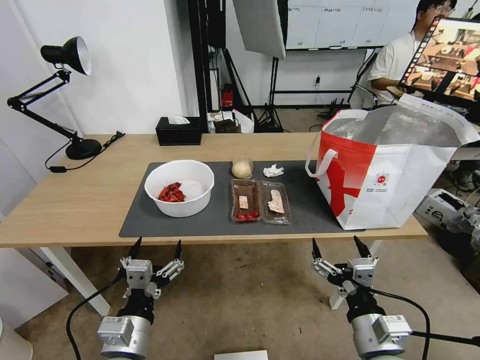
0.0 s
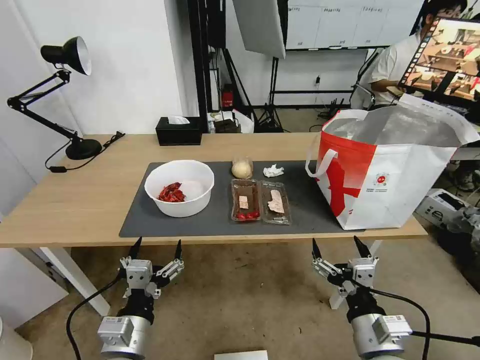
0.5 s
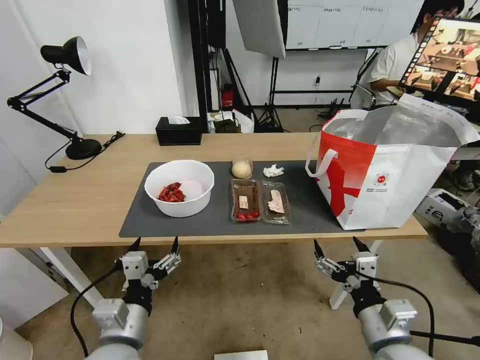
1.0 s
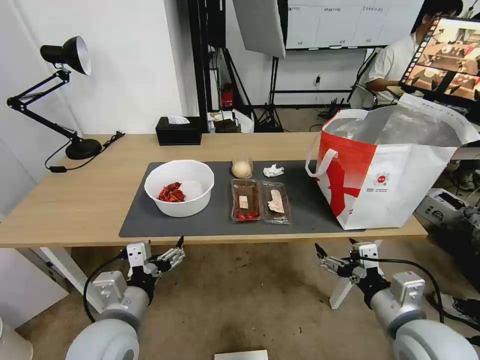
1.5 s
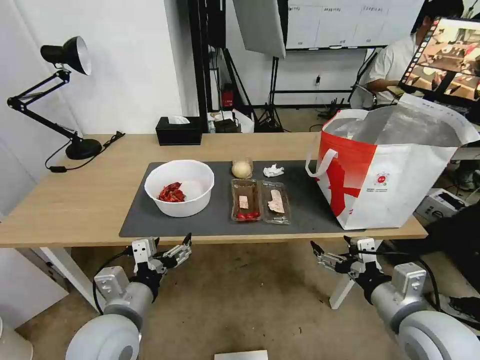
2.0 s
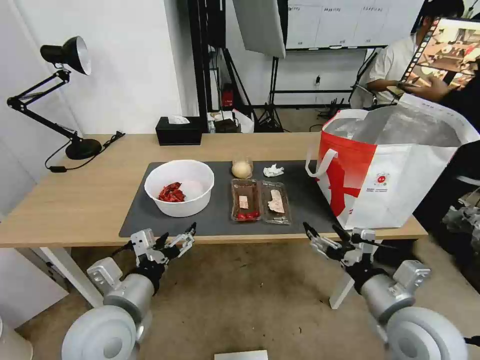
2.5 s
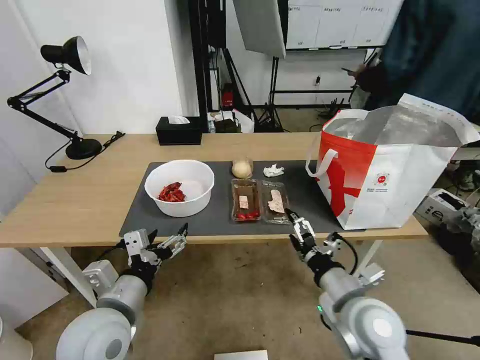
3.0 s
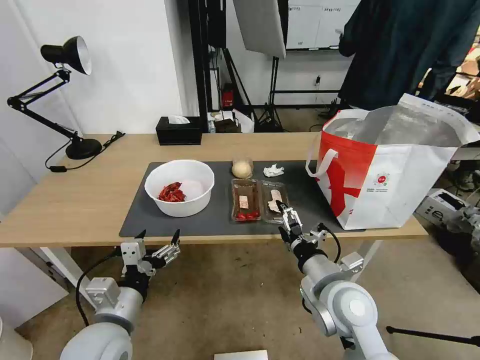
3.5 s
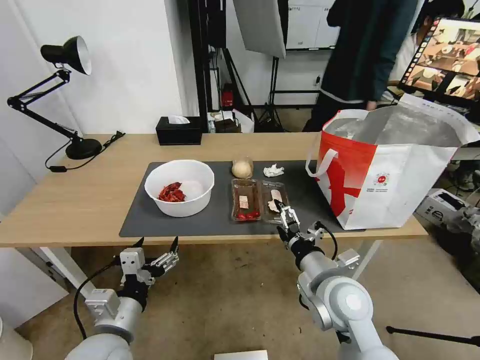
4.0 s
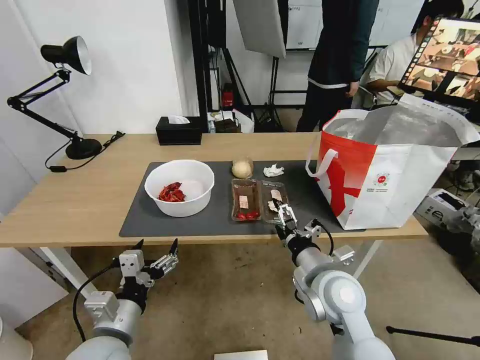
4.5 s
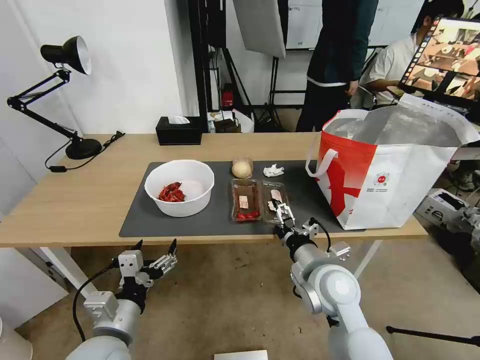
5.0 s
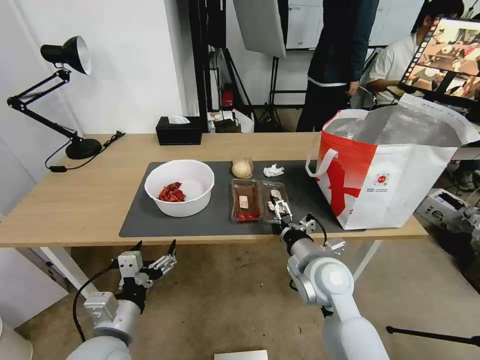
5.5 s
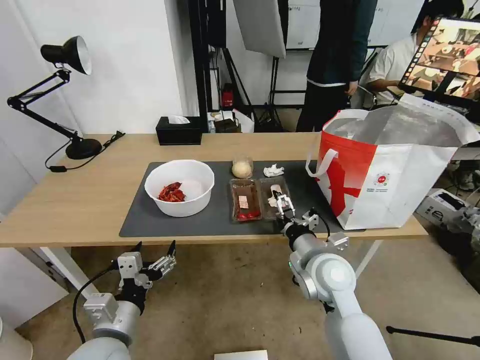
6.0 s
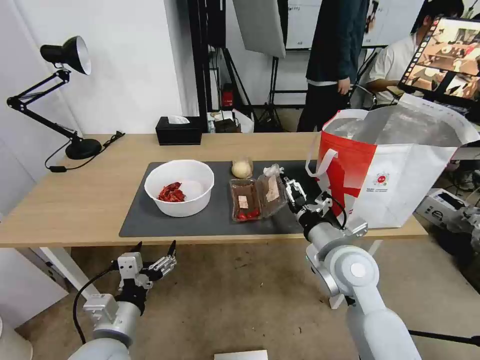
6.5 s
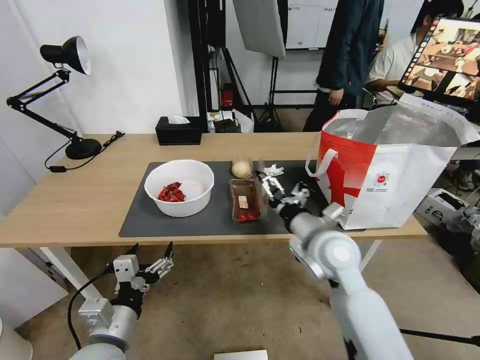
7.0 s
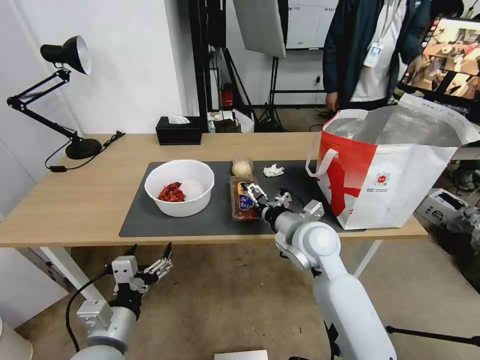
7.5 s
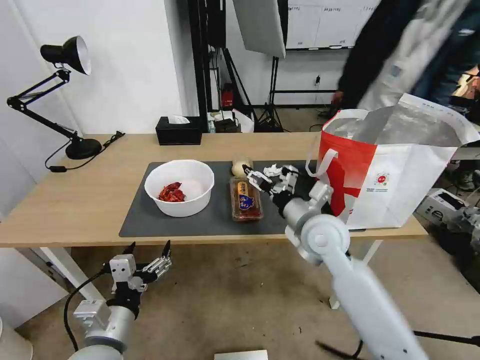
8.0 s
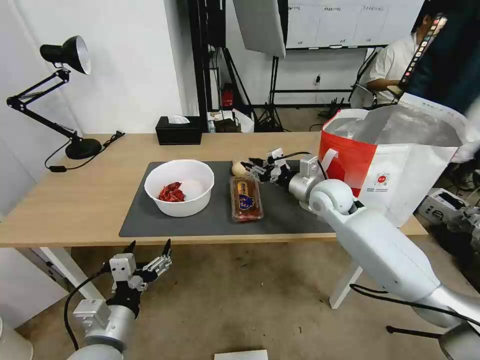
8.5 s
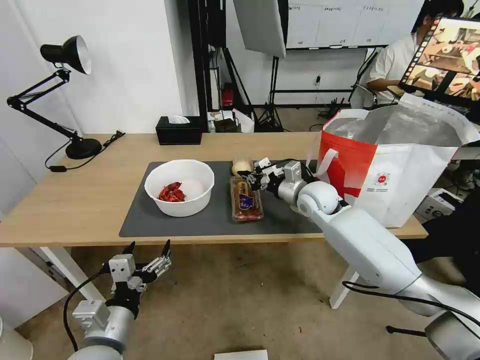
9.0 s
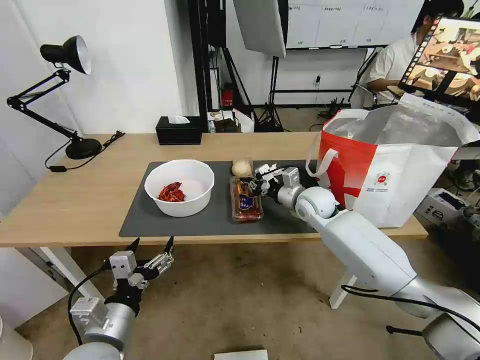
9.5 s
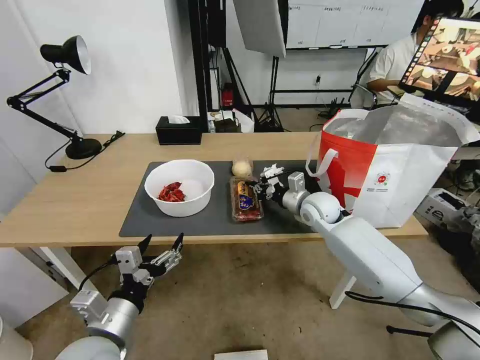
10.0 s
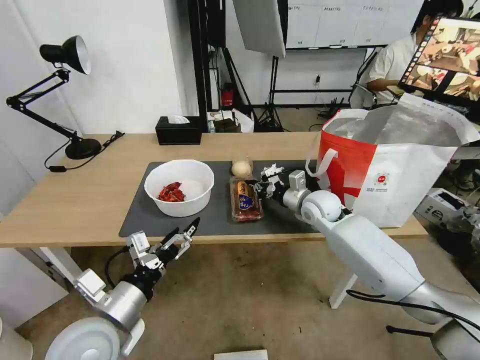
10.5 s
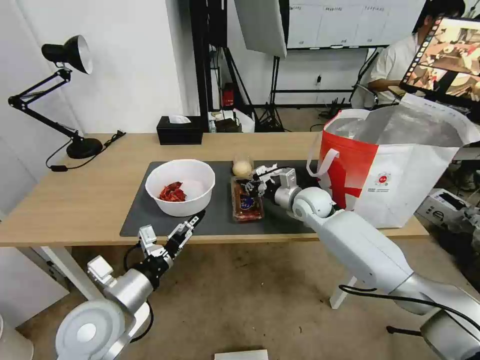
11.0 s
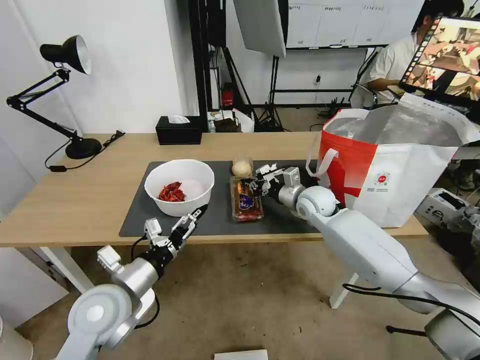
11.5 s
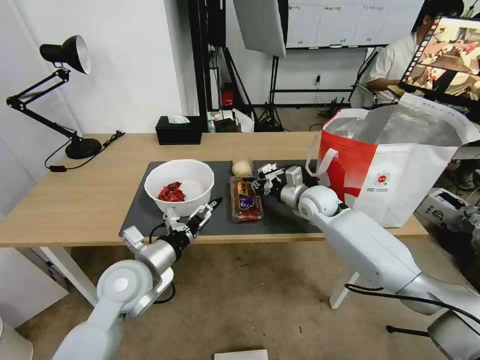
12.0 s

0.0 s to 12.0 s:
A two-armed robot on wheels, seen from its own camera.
Task of the whole recording: Pick up the trash from the table and place it into the takeout bag.
2.0 to 4.0 s: The right gripper goes approximately 15 cm to the left and forward, while the left gripper changes place by some 5 cm.
4.0 to 6.0 s: The right gripper ends up roughly 5 cm from where it was.
6.0 to 8.0 s: The right gripper heads forward, covering some 5 cm.
8.0 to 10.0 s: The right gripper heads forward and downward, covering some 15 cm, and closes.
10.0 to 12.0 s: The left gripper heads forward, covering some 15 cm.

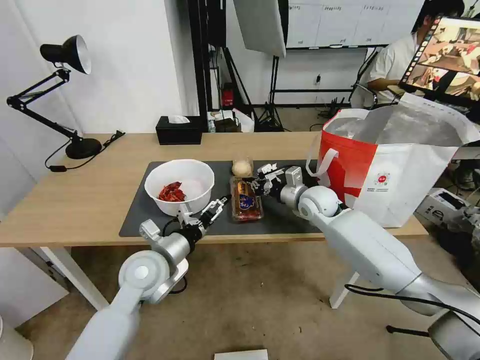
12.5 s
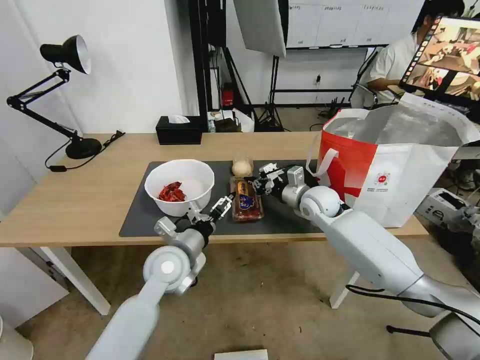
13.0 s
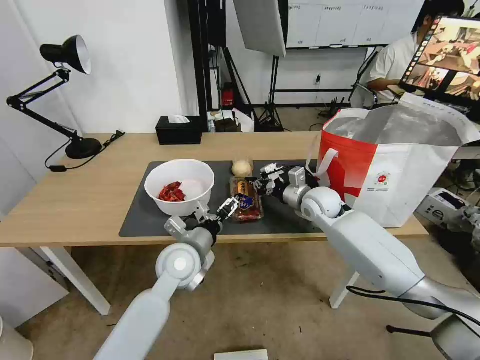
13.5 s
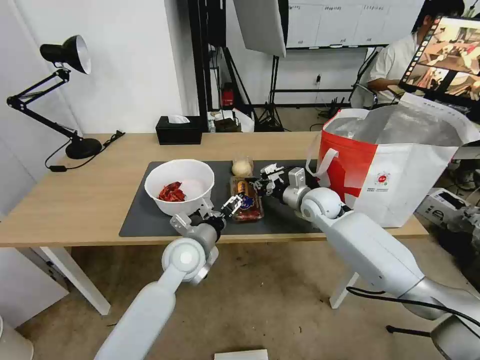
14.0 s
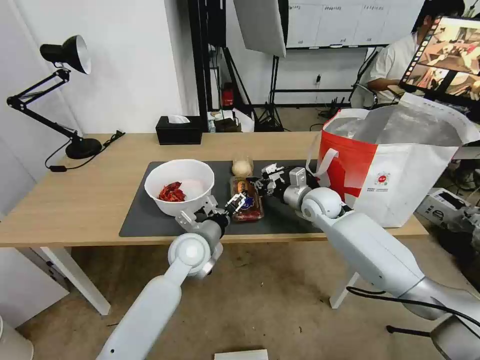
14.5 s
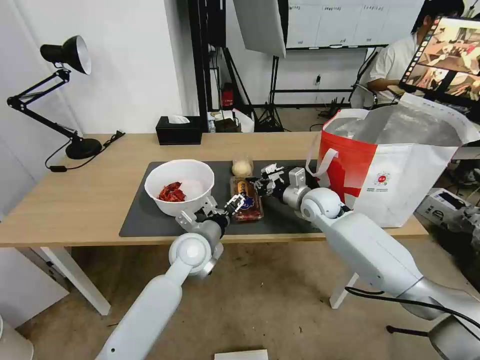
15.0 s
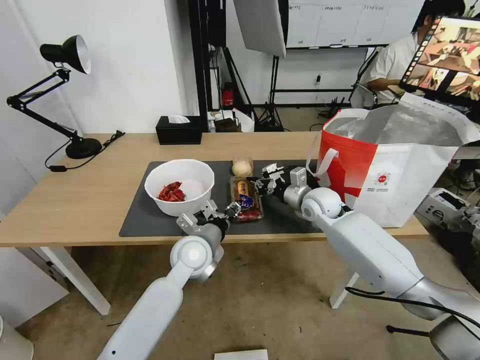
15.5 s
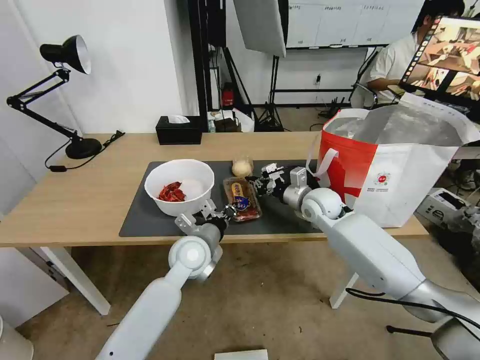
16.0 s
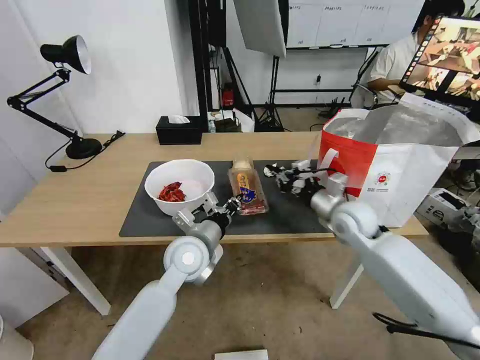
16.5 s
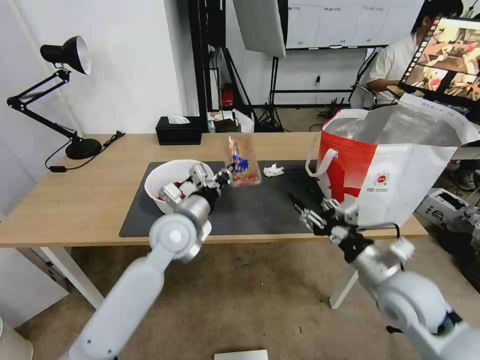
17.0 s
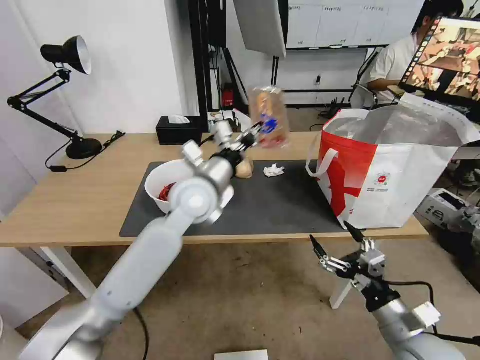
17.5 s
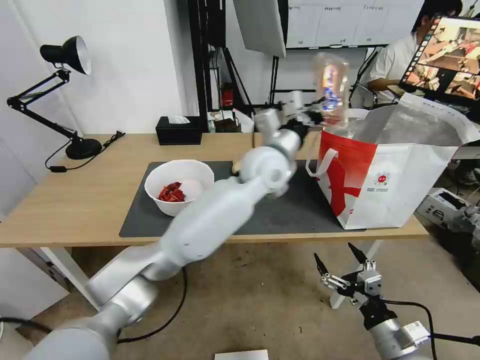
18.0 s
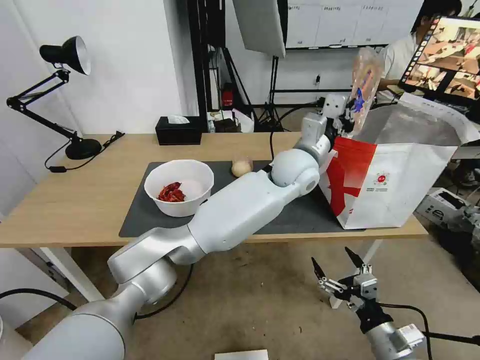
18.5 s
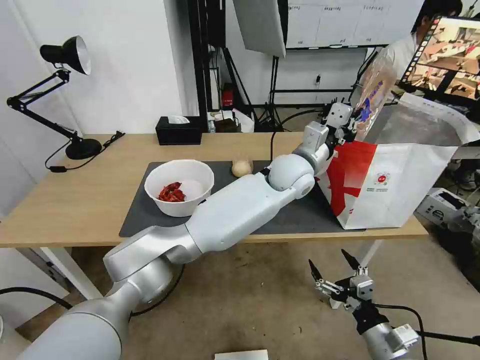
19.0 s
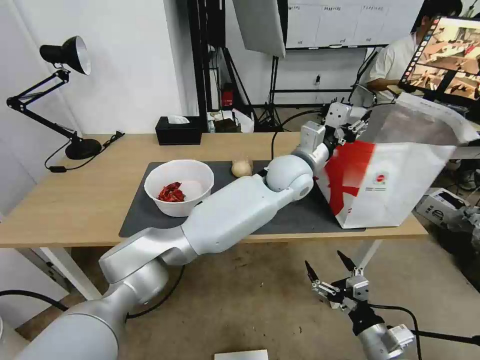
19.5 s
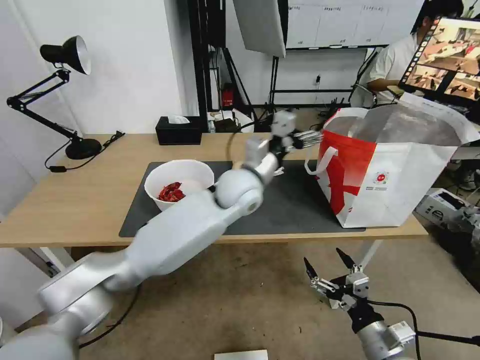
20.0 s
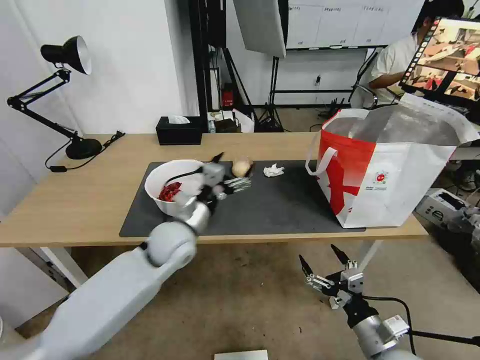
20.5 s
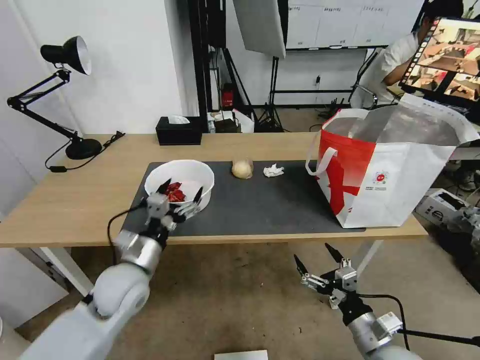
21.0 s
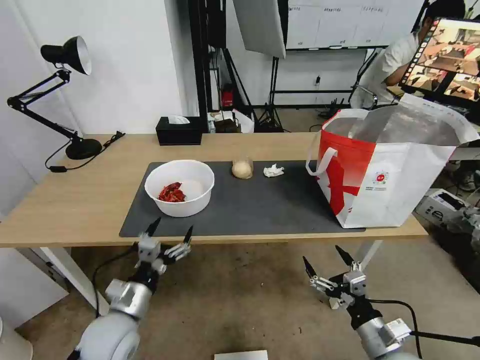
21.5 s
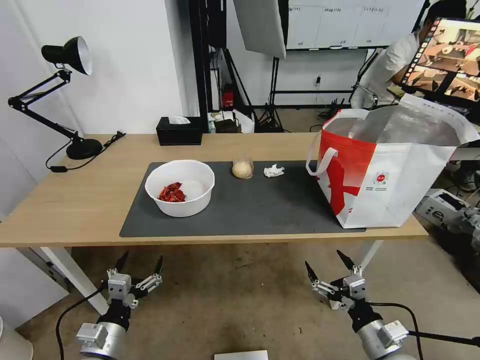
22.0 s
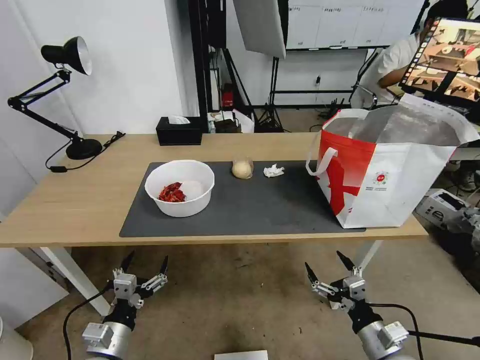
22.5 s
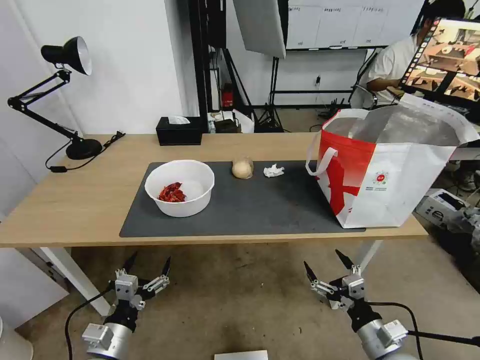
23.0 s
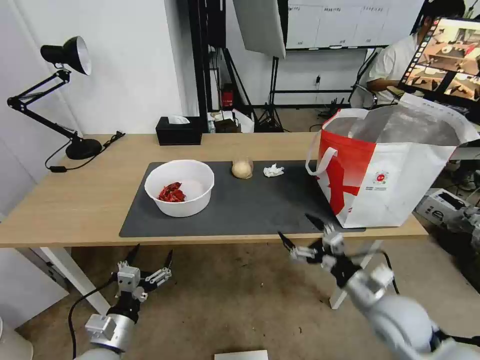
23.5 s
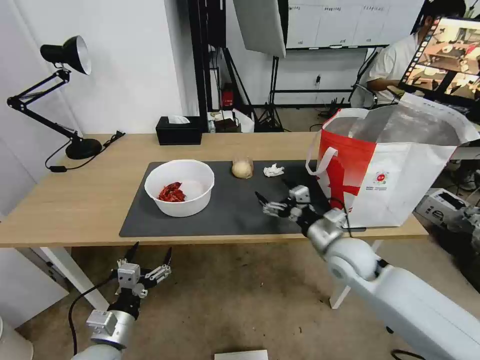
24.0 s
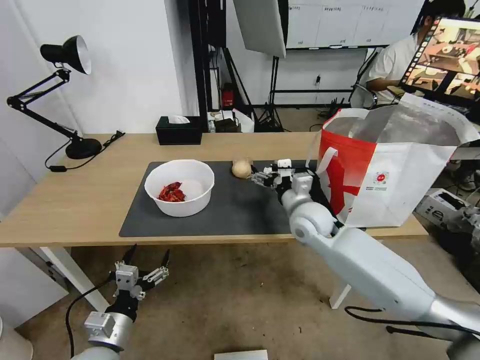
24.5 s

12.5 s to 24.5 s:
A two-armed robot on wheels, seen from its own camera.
Task of the whole recording: Pick up the trash from the table and place it into the takeout bag.
12.5 to 14.5 s: The left gripper travels to the right and forward by some 10 cm.
14.5 to 16.5 s: The left gripper closes. Meanwhile the right gripper goes roughly 10 cm backward and to the right.
16.5 to 18.5 s: The right gripper shifts about 30 cm backward, and opens. The left gripper moves to the right, forward and upward, roughly 30 cm.
18.5 to 20.5 s: The left gripper travels to the left and downward by roughly 30 cm, and opens up.
20.5 to 22.5 s: The left gripper goes approximately 30 cm backward, to the left and downward.
22.5 to 24.5 s: The right gripper travels forward, to the left and upward by approximately 35 cm.

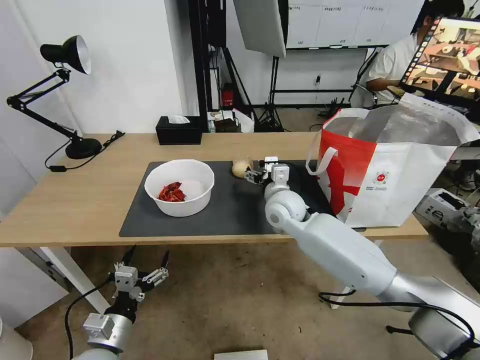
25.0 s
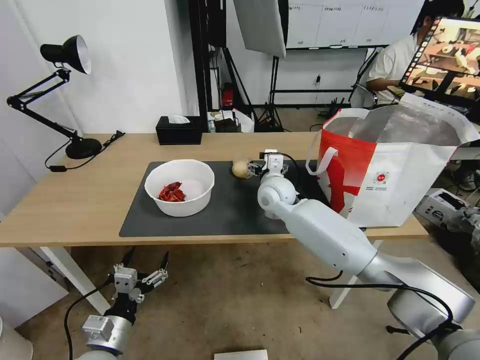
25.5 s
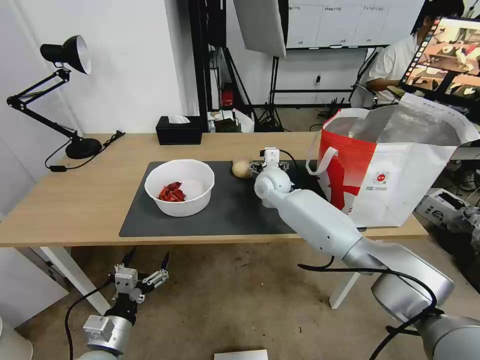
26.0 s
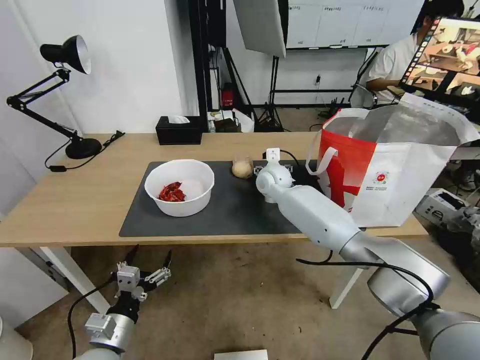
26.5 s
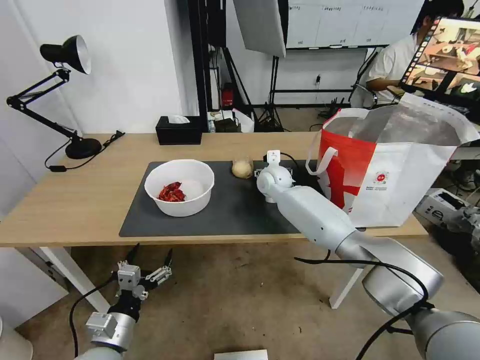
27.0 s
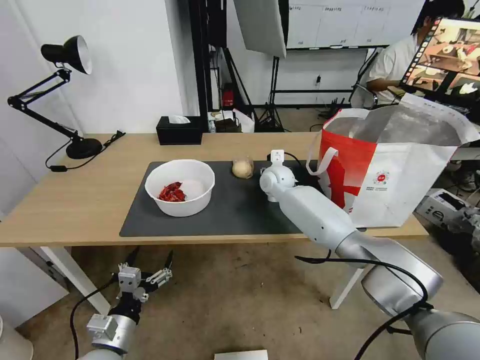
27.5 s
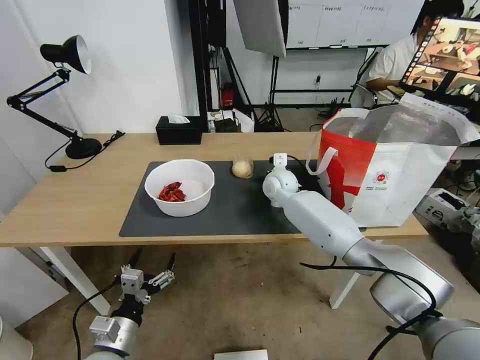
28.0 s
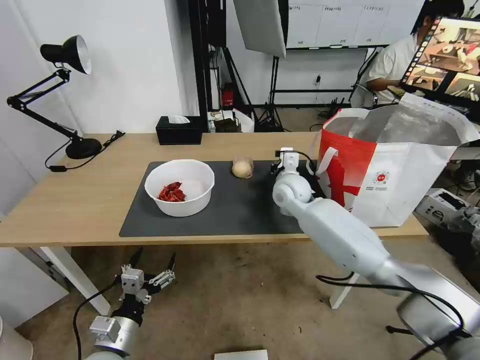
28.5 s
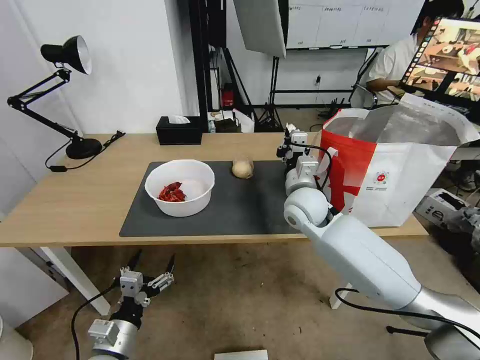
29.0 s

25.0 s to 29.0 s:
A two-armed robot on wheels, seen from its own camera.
Task of the whole recording: Pick up the trash from the table and place it into the takeout bag.
25.0 to 27.0 s: The right gripper moves forward, roughly 10 cm.
27.0 to 29.0 s: The right gripper travels backward by about 15 cm, and closes up.
